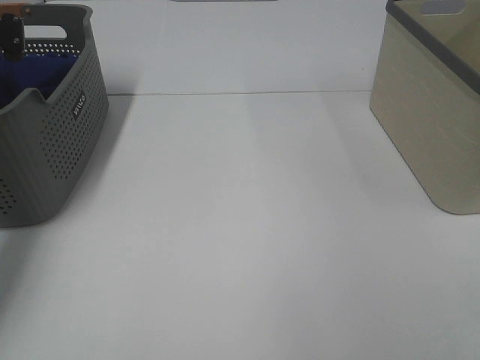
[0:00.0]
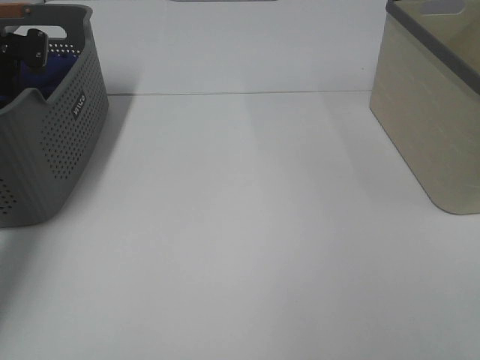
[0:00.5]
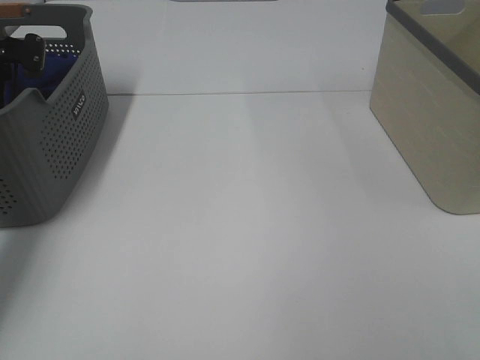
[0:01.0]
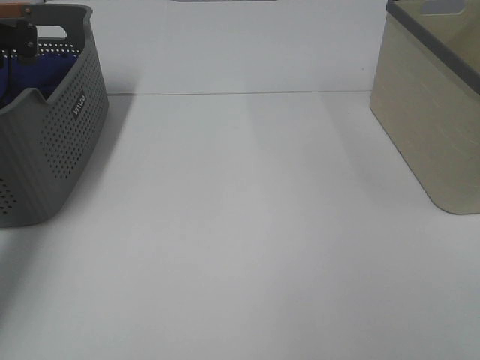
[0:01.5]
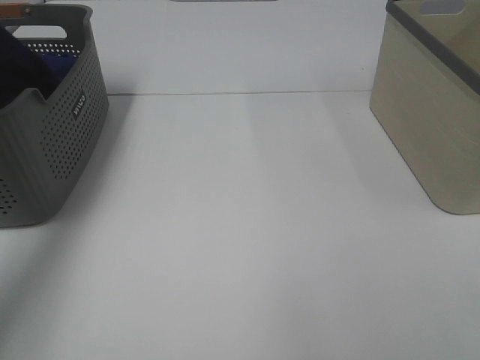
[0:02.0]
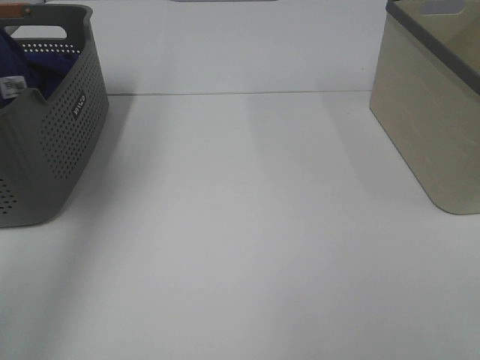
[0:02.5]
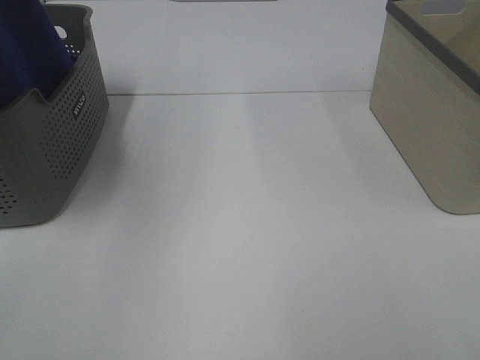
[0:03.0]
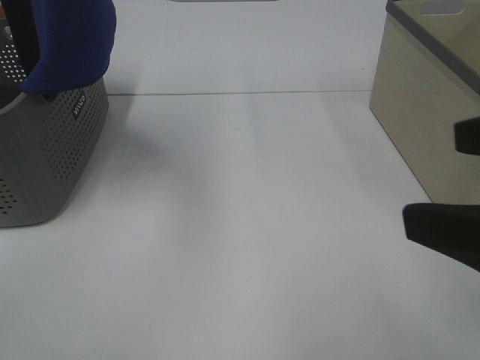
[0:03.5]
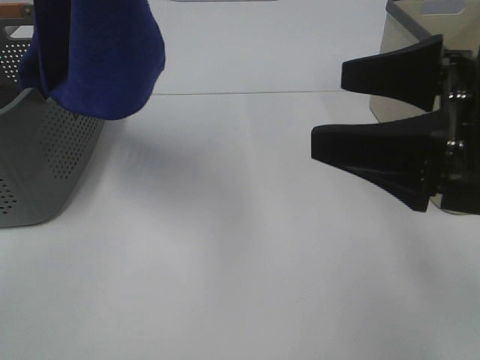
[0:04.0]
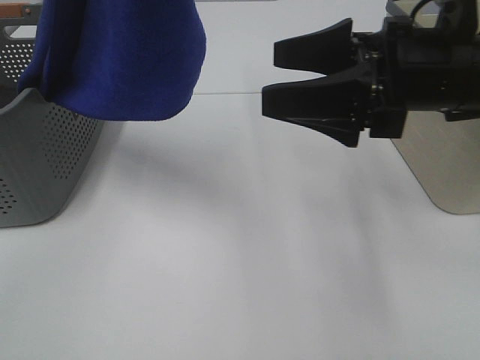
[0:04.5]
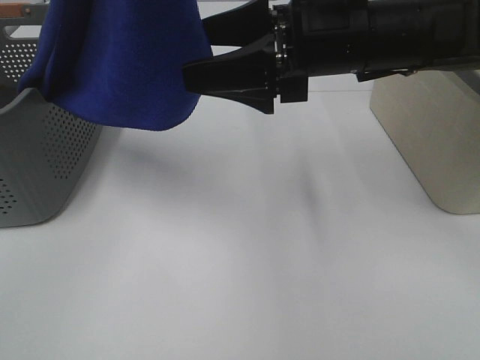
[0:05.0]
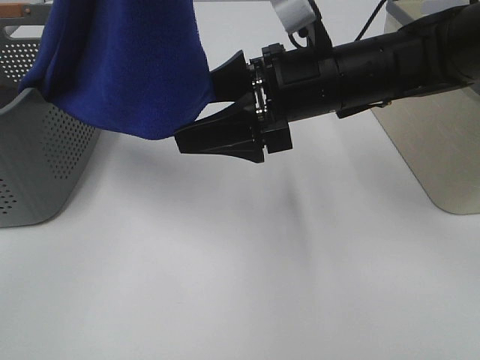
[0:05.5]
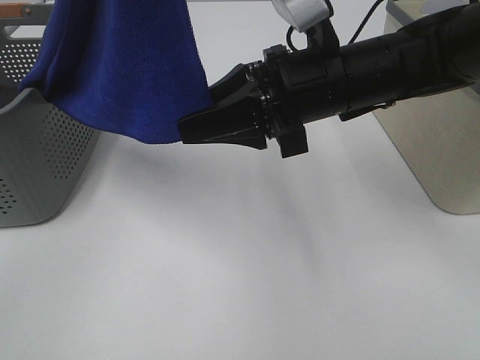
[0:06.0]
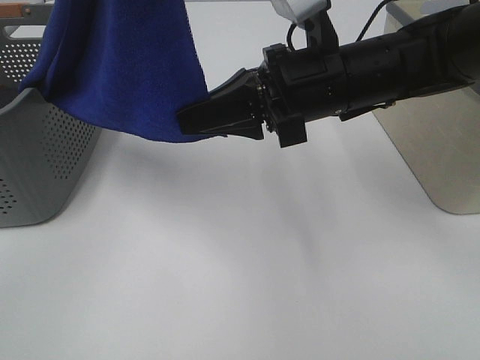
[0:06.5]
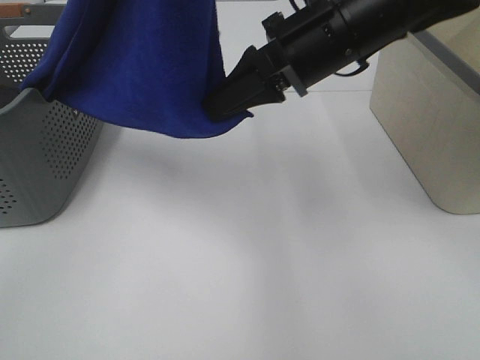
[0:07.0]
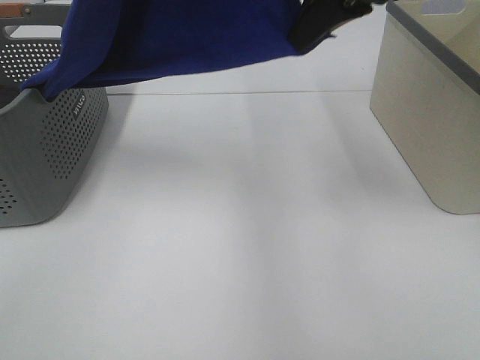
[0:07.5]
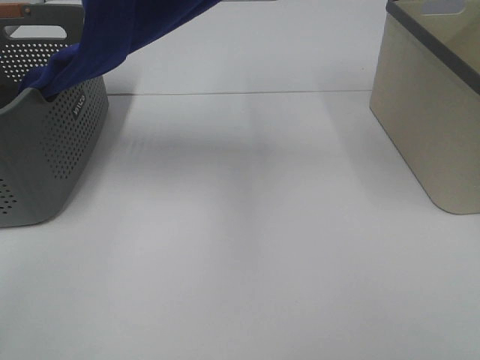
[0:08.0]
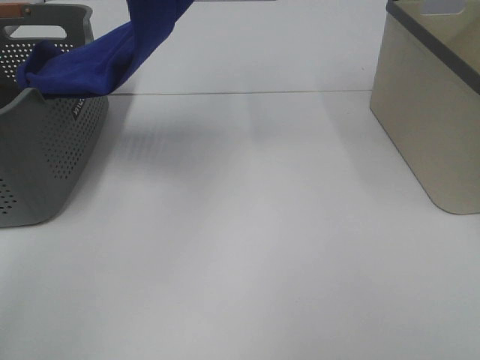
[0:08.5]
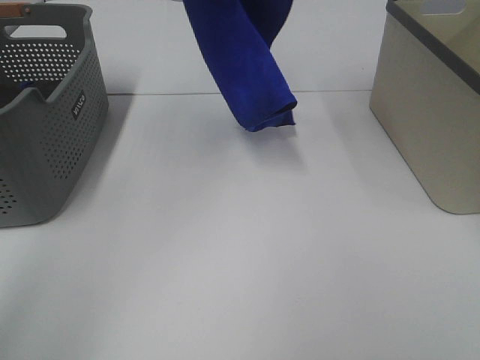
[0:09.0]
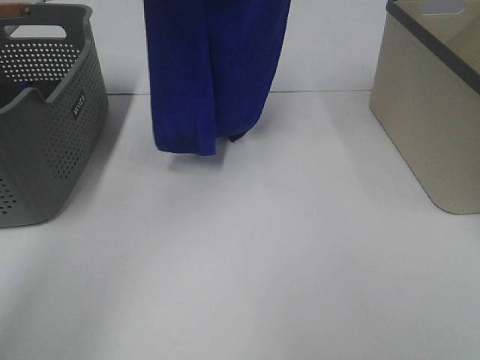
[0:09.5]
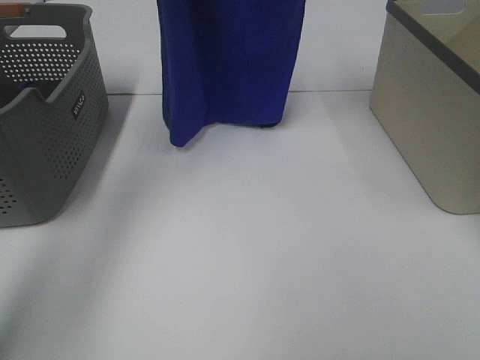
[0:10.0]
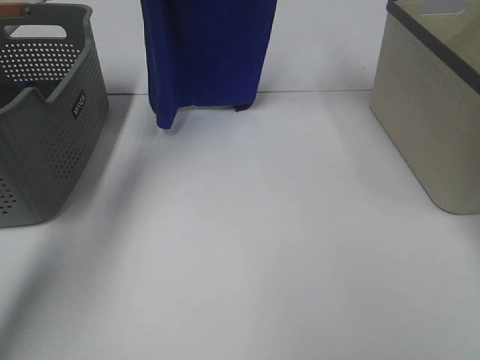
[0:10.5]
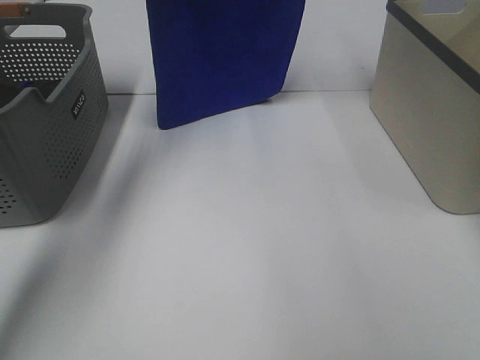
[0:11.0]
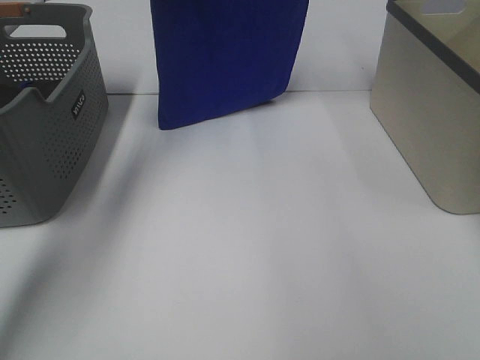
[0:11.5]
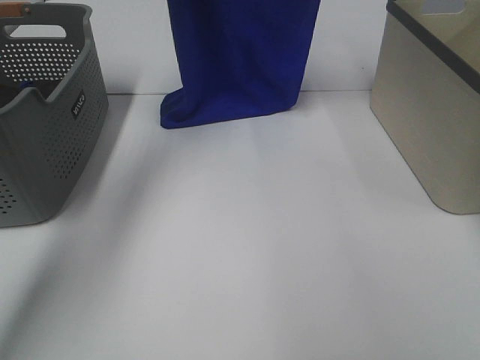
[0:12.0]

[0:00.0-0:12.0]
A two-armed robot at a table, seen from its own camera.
Task of the whole recording: Remove the towel and place it.
Step, 0:02.5 to 0:06.5: Right hand: grab a corner of the blue towel and straighten it.
0:00.0 to 0:02.0: The left gripper goes approximately 15 cm upward, and closes.
0:02.0 to 0:04.0: The right gripper moves forward and to the left, some 20 cm. Meanwhile the left gripper heads to the right, backward and upward, covering about 35 cm.
0:04.0 to 0:06.0: The right gripper shifts some 15 cm to the left and forward, and closes its fingers.
0:06.0 to 0:08.0: The left gripper moves forward, approximately 5 cm. Meanwhile the right gripper is displaced upward by about 25 cm, and closes up.
0:08.0 to 0:10.0: The right gripper heads forward, covering about 10 cm, while the left gripper is displaced forward by about 20 cm.
0:10.0 to 0:12.0: The right gripper moves some 5 cm, while the left gripper is displaced forward by some 5 cm.

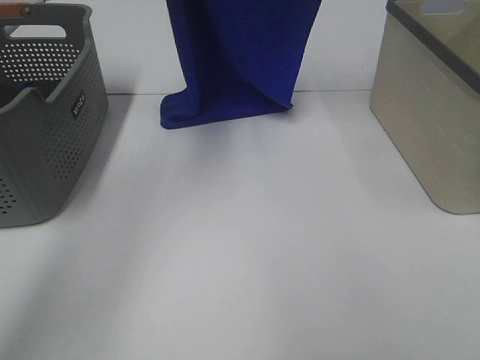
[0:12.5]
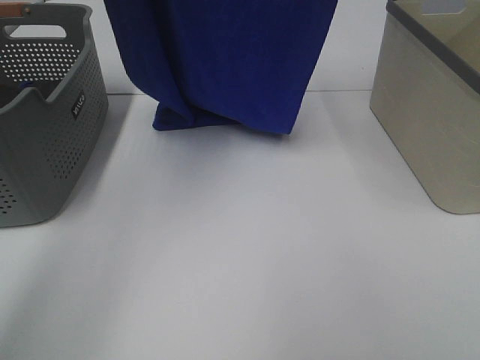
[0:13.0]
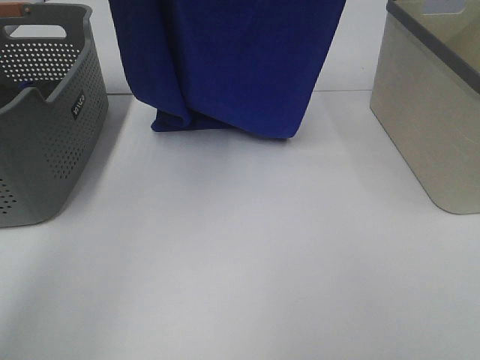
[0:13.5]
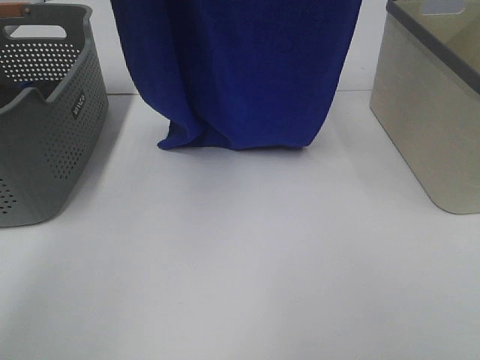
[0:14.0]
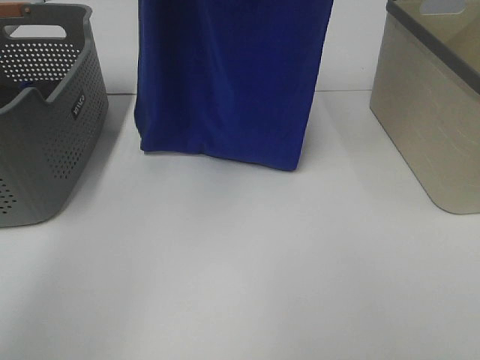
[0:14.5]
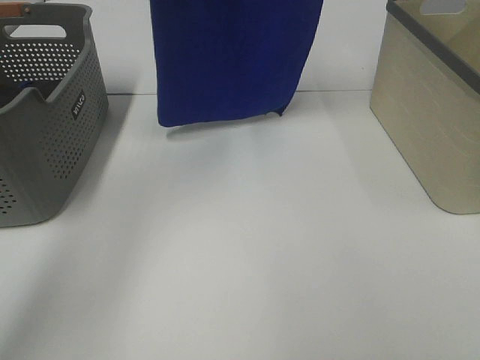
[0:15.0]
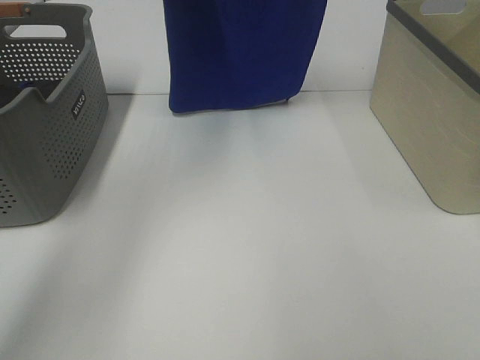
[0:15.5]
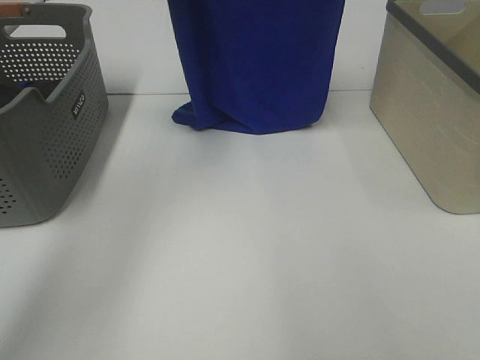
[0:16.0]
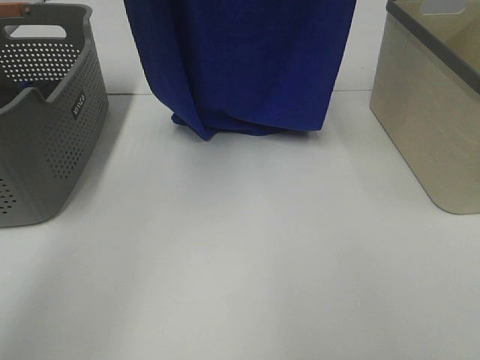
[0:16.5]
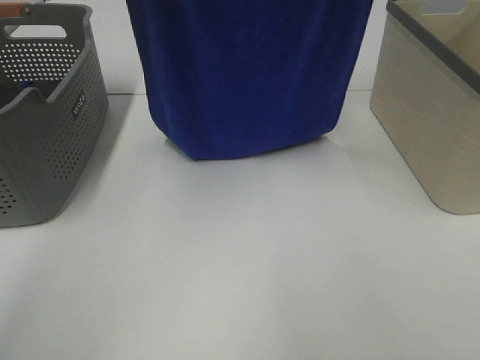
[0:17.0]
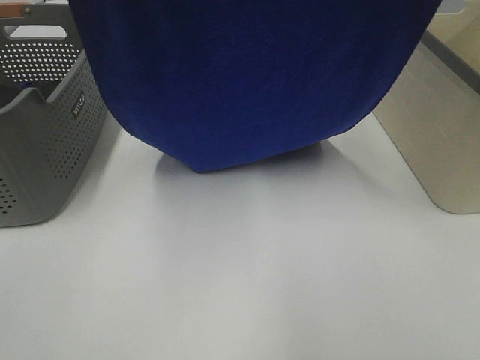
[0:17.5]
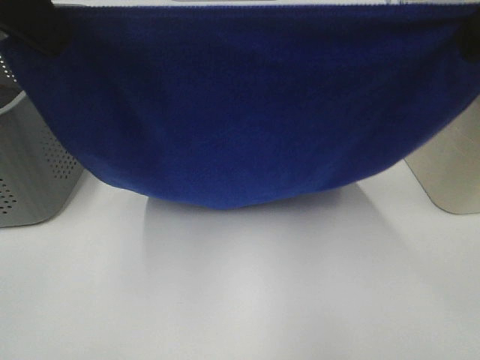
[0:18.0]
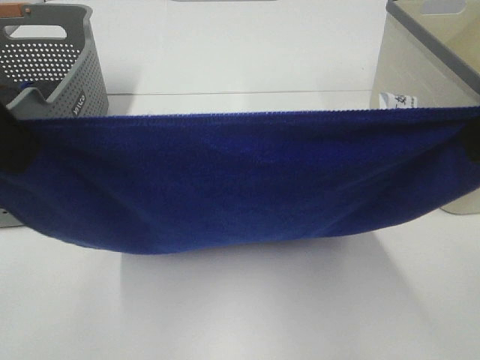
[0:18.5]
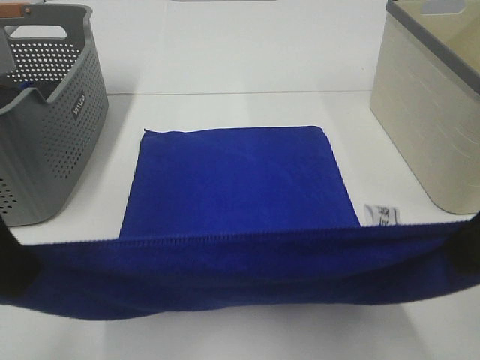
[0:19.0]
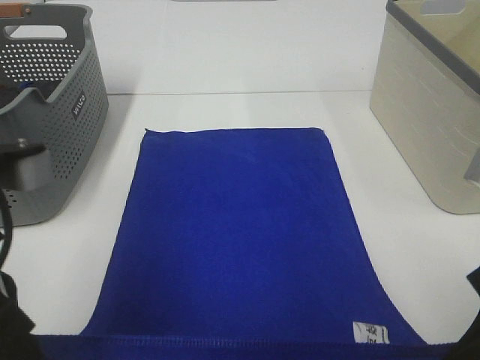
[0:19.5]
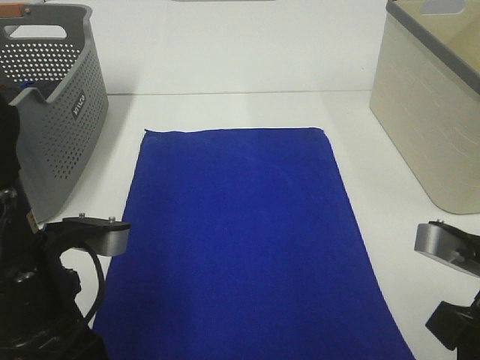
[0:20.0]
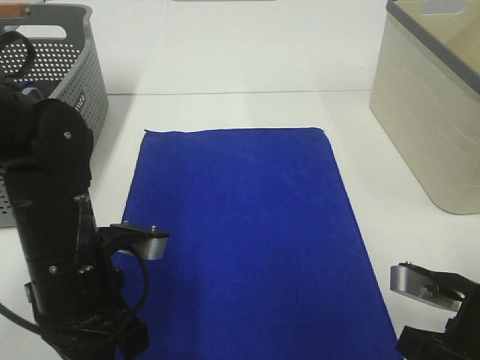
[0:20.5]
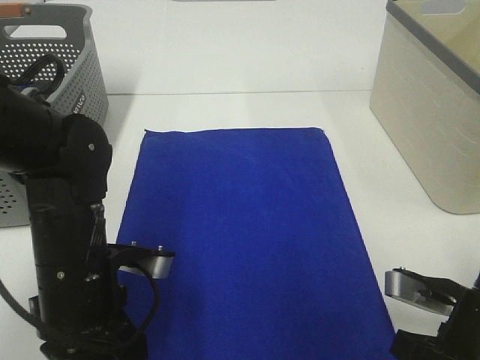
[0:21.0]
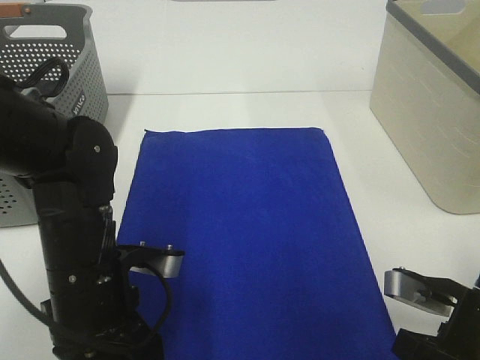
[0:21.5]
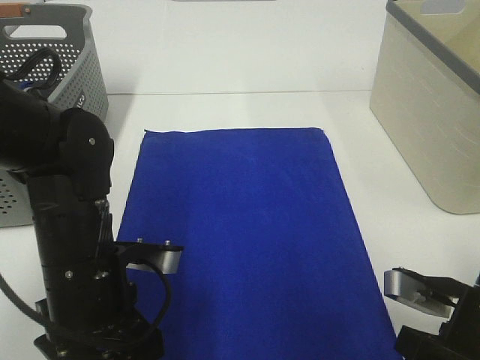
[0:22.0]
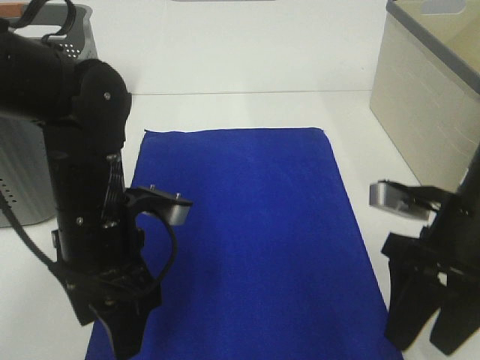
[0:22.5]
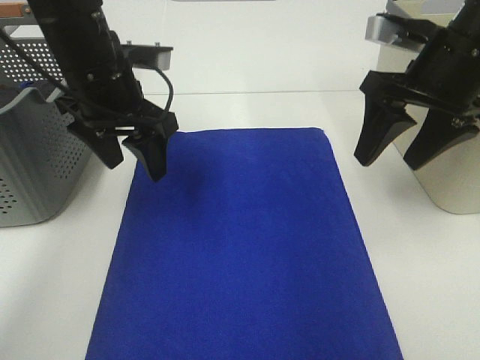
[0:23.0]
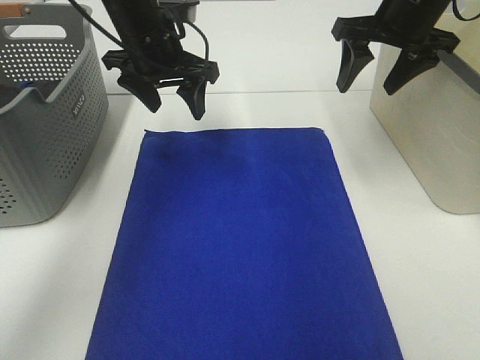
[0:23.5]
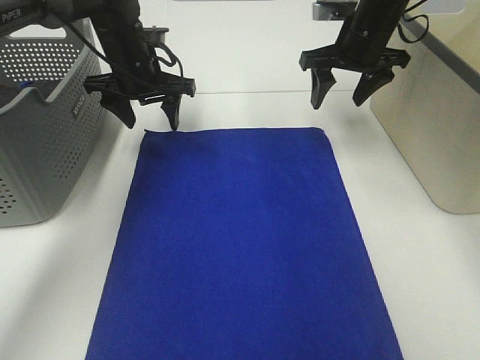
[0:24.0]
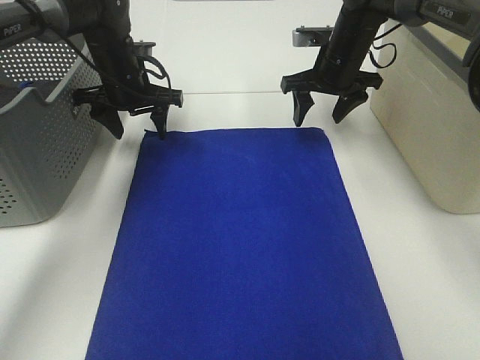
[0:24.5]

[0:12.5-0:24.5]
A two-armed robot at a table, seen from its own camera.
Task of the whole recording: Remove the towel and place it.
Step, 0:12.5 to 0:16.0: Left hand: spread the blue towel flat on the table.
Step, 0:12.5 to 0:16.0: Right hand: spread the blue towel flat on the table.
0:12.5 to 0:14.5: The left gripper shifts roughly 5 cm backward.
0:16.5 to 0:18.5: The grippers both shift backward and downward by about 25 cm.
0:18.5 to 0:20.5: Both grippers move downward, some 25 cm.
0:20.5 to 0:22.5: The right gripper travels forward by approximately 10 cm, and opens its fingers. The left gripper changes place by approximately 5 cm, and opens.
0:22.5 to 0:24.5: Both grippers travel together forward, some 25 cm.

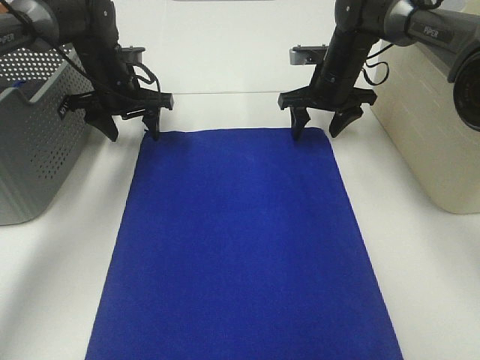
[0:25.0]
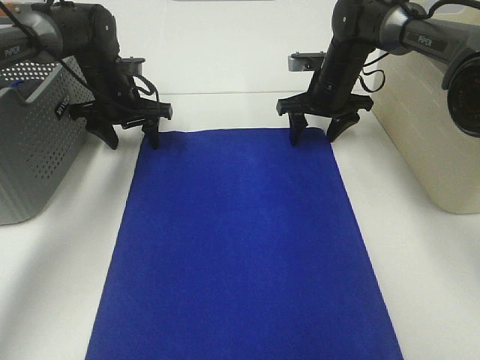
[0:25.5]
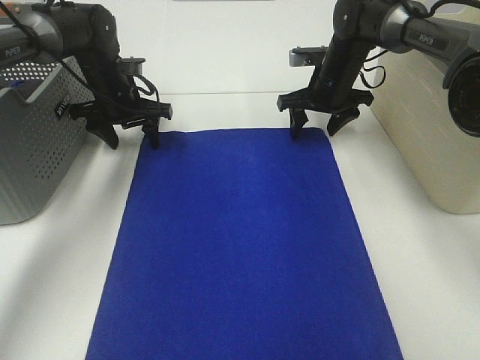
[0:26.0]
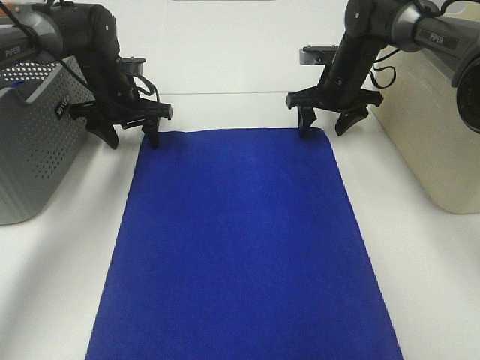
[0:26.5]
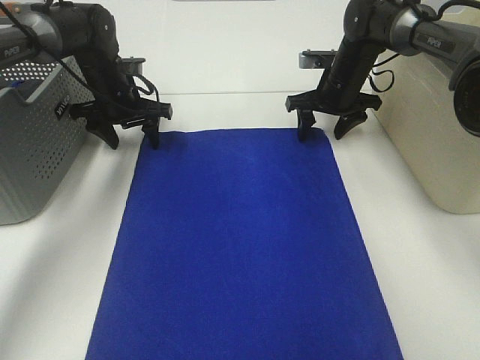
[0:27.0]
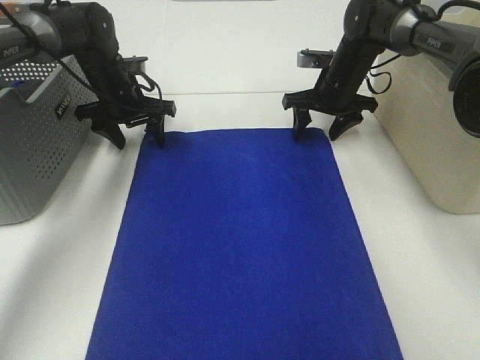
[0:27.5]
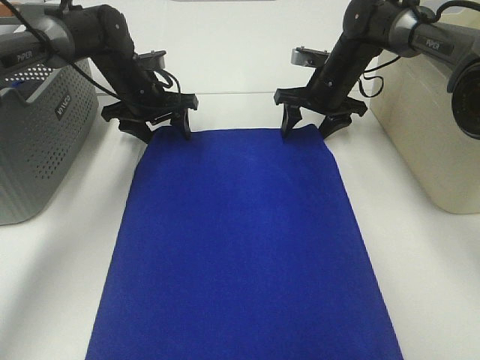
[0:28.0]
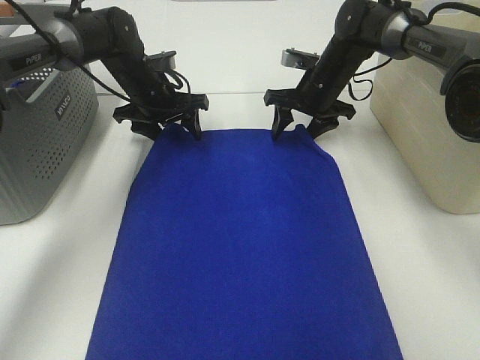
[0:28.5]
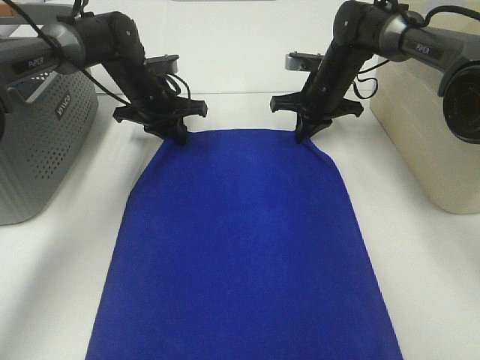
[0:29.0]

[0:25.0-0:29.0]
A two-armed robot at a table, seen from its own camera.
Task of the whole recording: Remove the towel and place it.
0:25.0 to 0:27.0: The grippers make only small movements.
0:27.0 to 0:29.0: The left gripper moves roughly 5 cm, and closes, while the right gripper closes.
